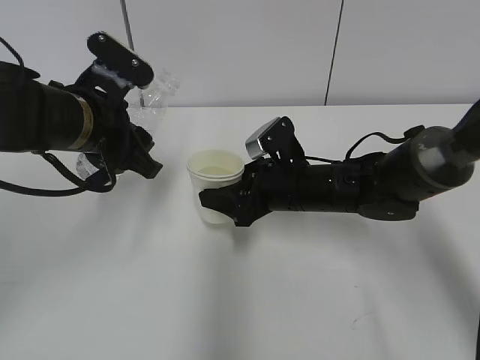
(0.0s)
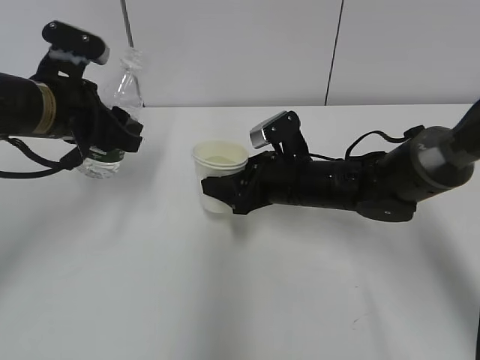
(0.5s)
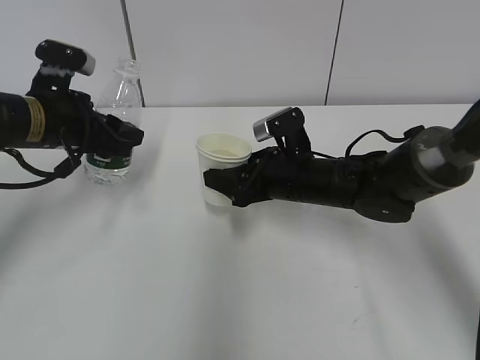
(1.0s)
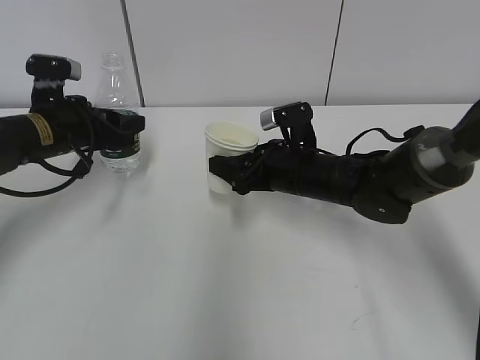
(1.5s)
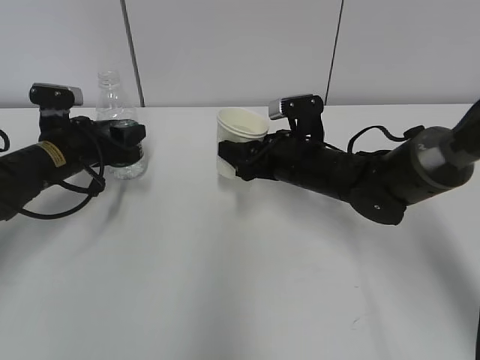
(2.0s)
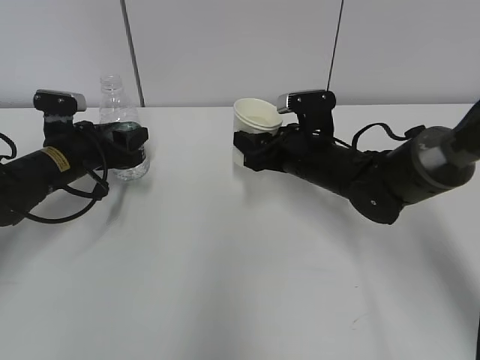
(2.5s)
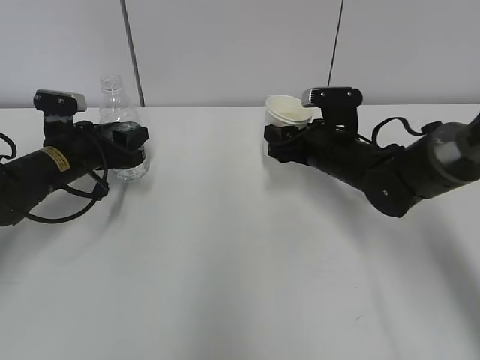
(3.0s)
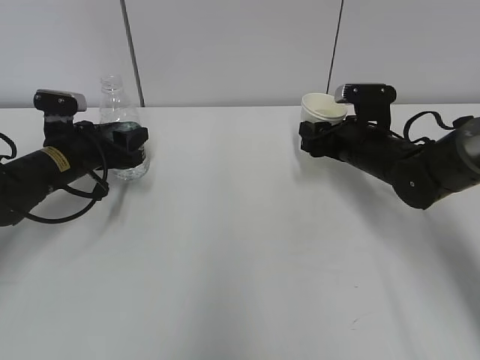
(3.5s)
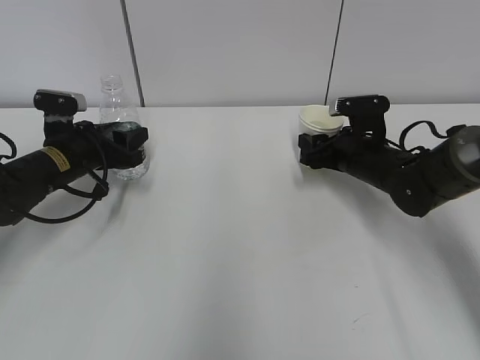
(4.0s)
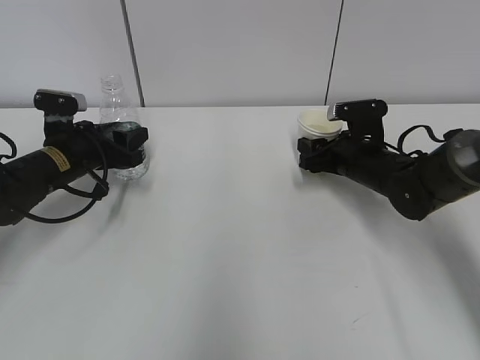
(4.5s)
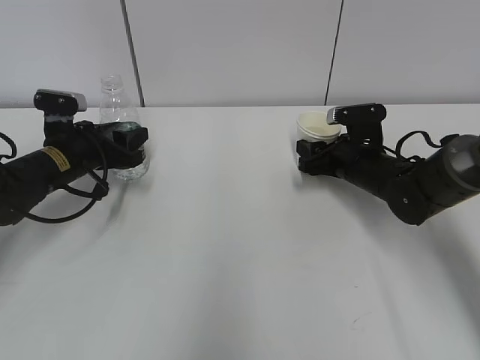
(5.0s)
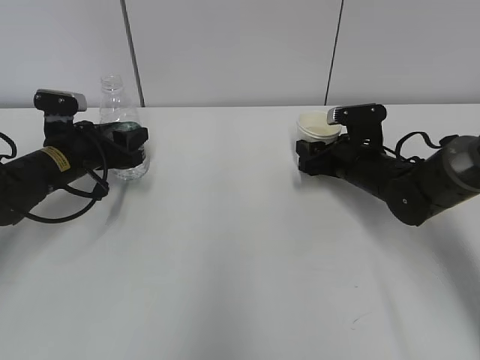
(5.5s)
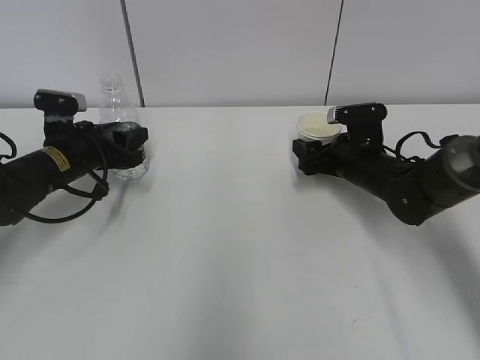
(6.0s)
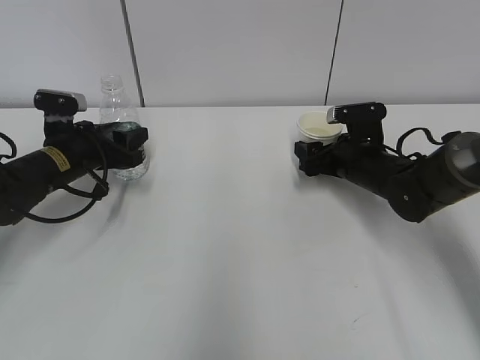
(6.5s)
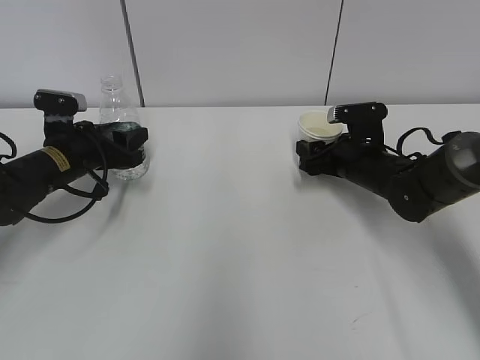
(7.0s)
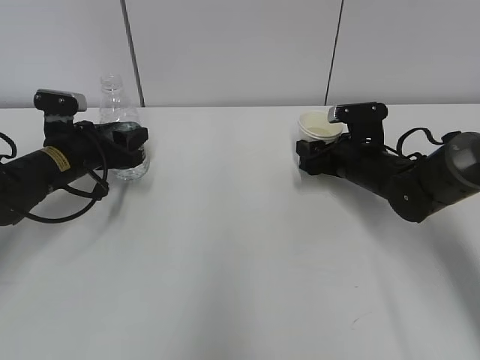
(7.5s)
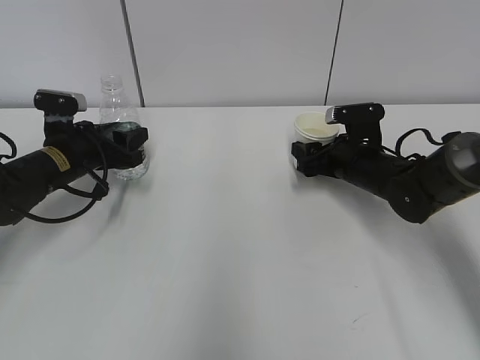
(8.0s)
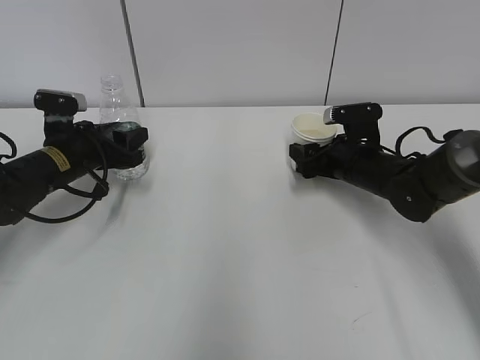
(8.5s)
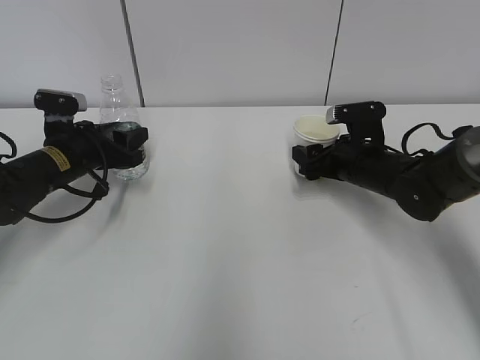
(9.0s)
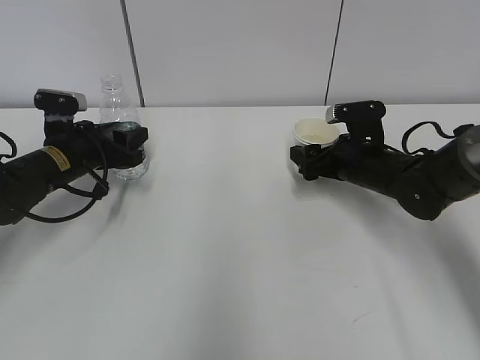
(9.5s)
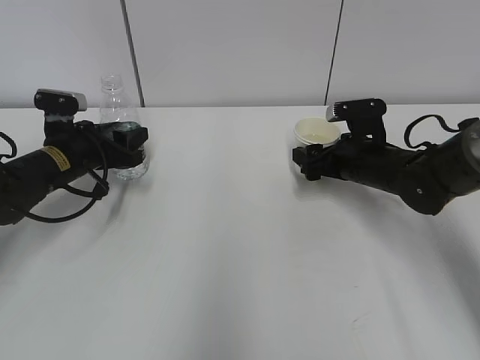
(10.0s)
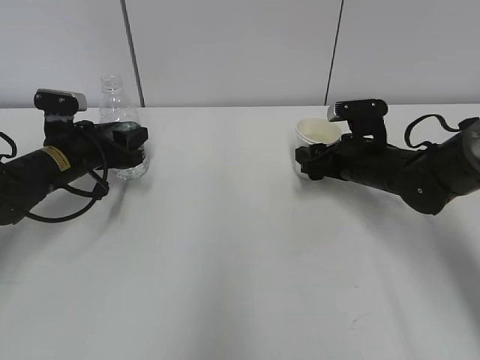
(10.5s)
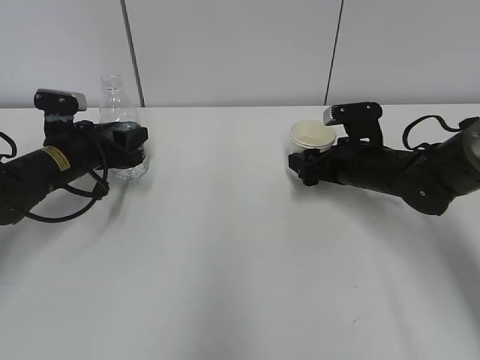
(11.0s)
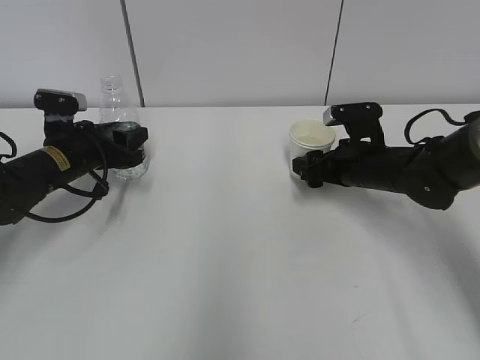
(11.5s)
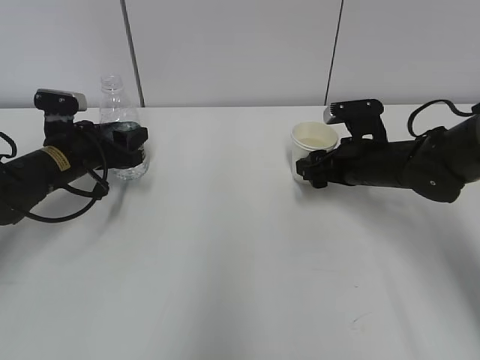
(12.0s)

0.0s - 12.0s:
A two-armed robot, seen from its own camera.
Step, 0.0s - 6.0s: Place the paper cup with the right hand.
0.0s - 2.0s: The left gripper moves downward, forward and to the left, roughly 15 cm.
2.0s - 4.0s: The right gripper travels to the right by approximately 10 cm.
4.0s - 6.0s: The right gripper opens up.
6.0s - 8.0s: The right gripper closes up.
8.0s - 10.0s: The right gripper opens its fingers.
10.0s - 12.0s: The right gripper closes.

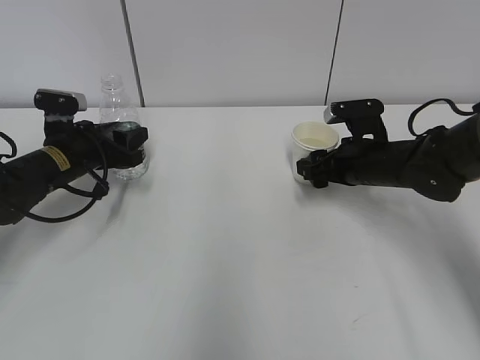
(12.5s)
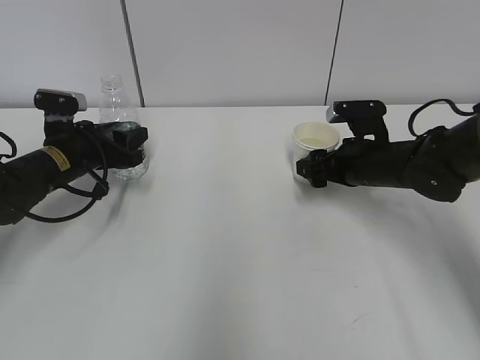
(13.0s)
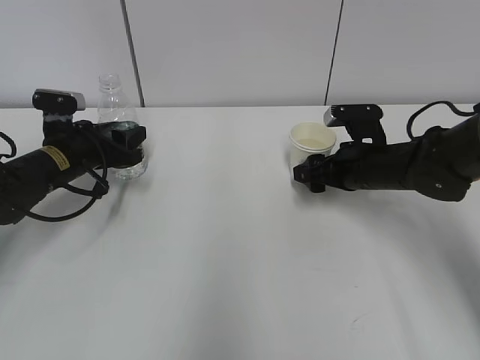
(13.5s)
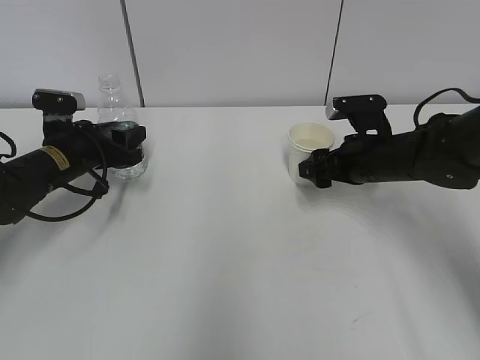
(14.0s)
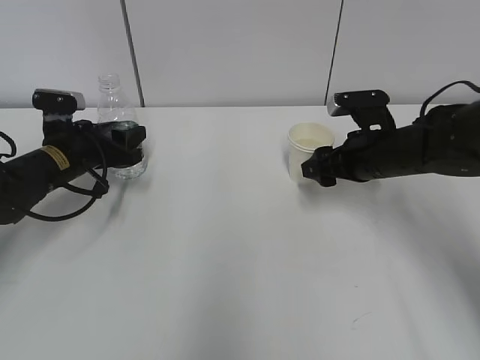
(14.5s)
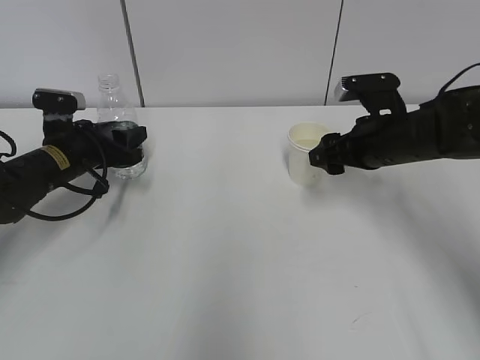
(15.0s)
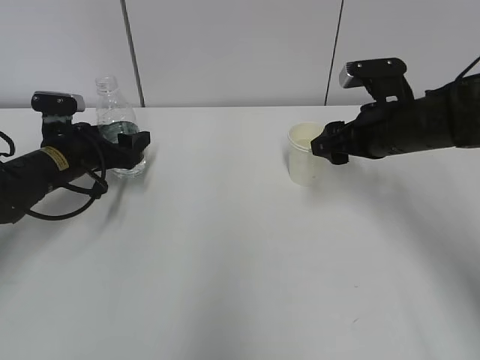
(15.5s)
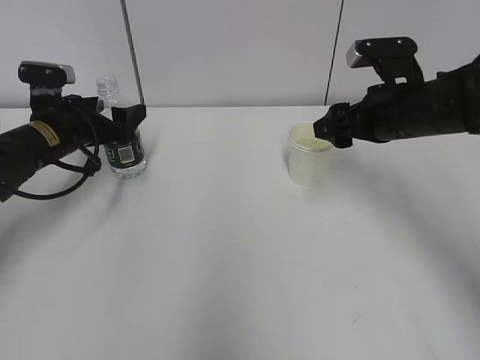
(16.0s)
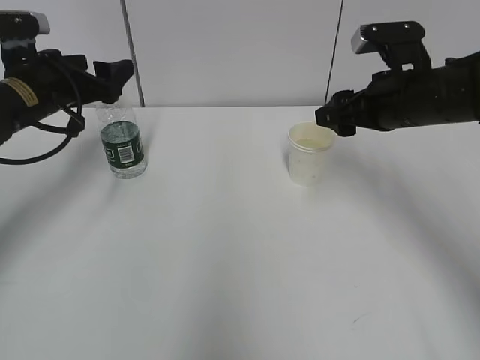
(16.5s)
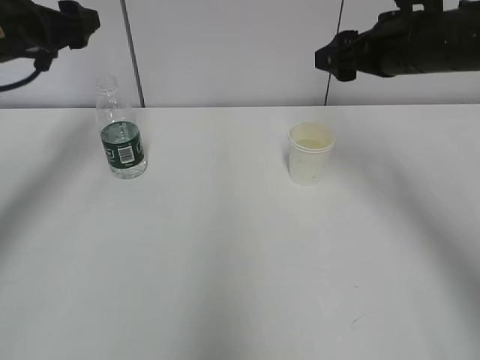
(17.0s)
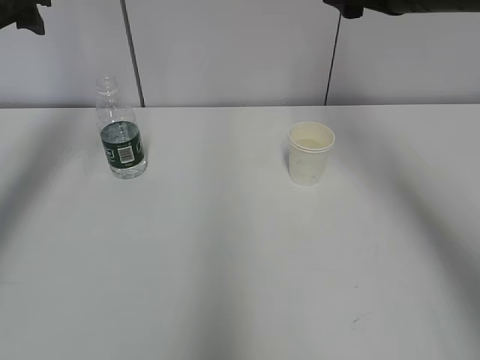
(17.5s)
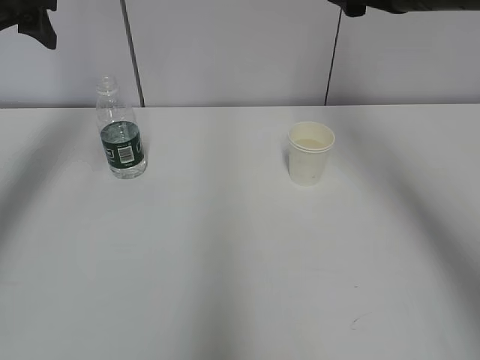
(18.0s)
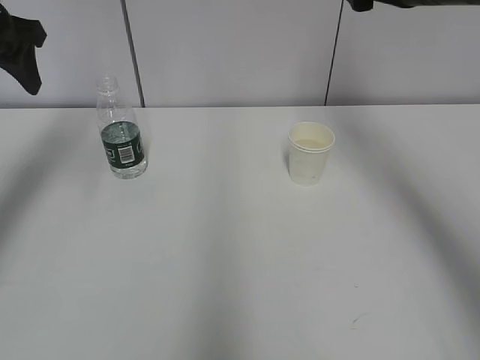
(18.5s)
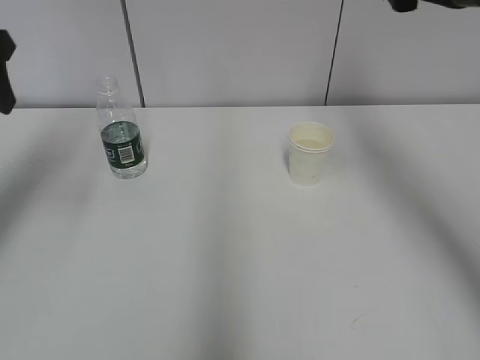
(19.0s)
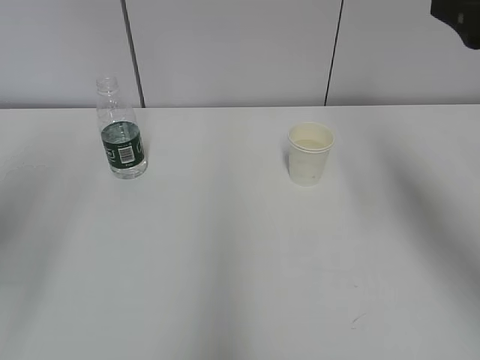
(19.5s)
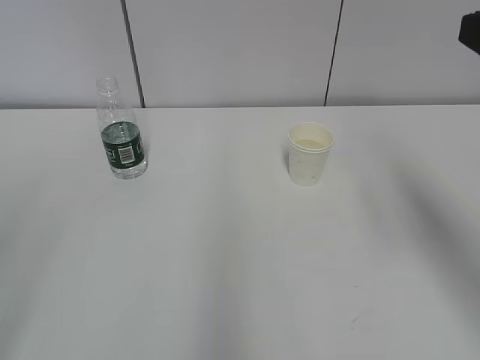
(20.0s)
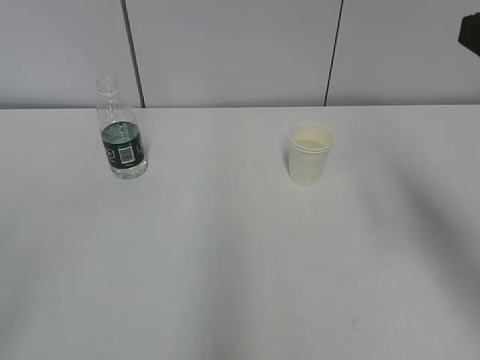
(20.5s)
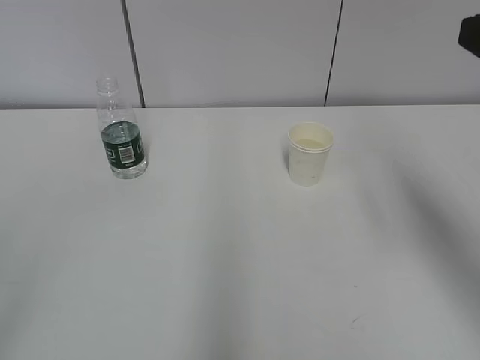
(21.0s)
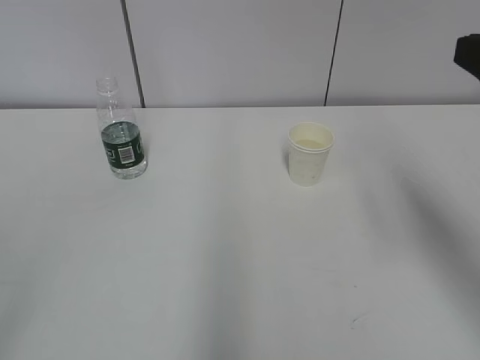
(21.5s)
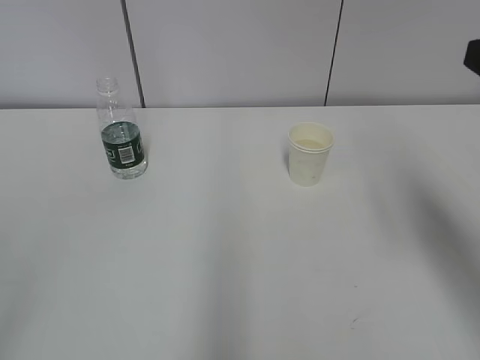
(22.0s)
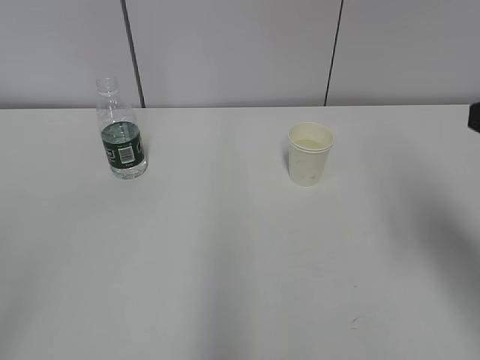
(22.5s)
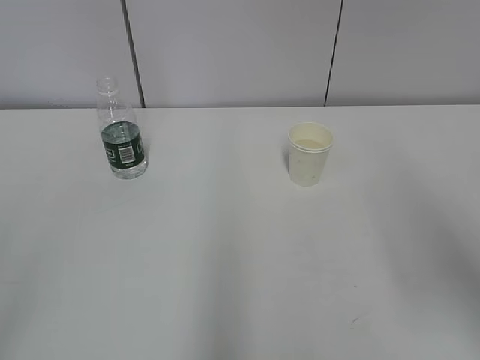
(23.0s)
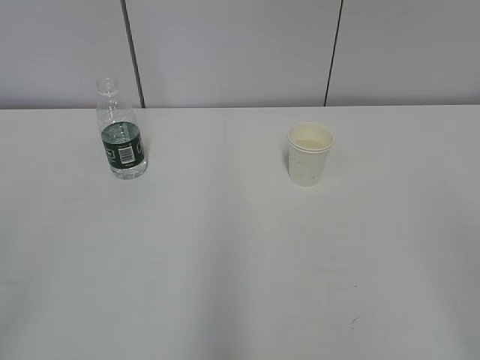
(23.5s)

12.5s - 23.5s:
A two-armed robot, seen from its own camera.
12.5s - 14.5s: There are only small adjustments of the grippers.
14.5s - 16.0s: The left gripper opens, while the right gripper travels upward by some 5 cm.
16.0s - 18.0s: The right gripper heads upward, covering some 15 cm. Meanwhile the left gripper travels upward by some 20 cm.
18.0s - 20.0s: The right gripper goes approximately 20 cm backward; the left gripper is displaced backward by roughly 30 cm.
21.5s - 23.5s: The right gripper shifts roughly 20 cm backward.

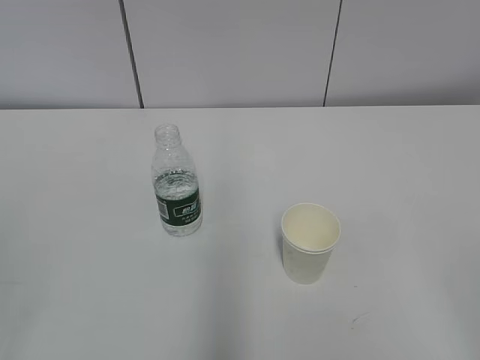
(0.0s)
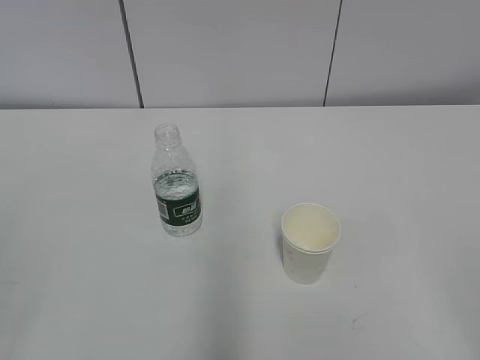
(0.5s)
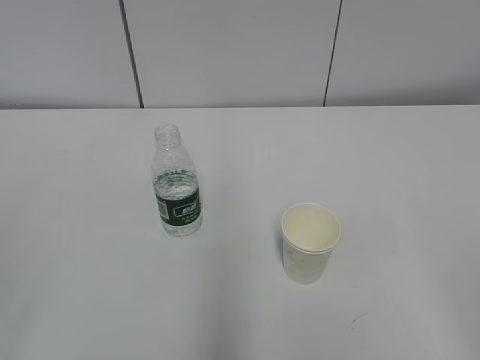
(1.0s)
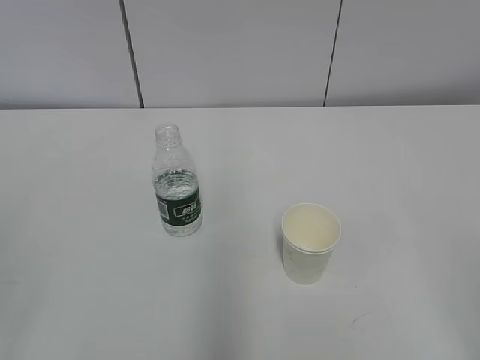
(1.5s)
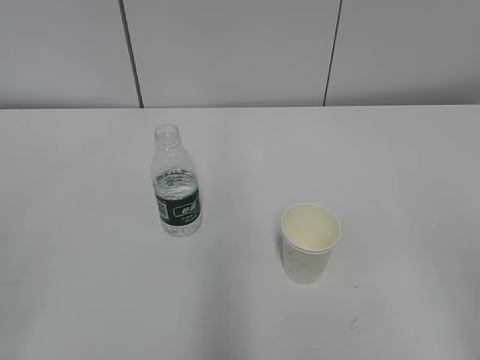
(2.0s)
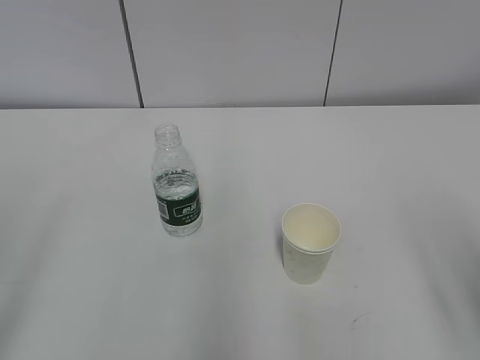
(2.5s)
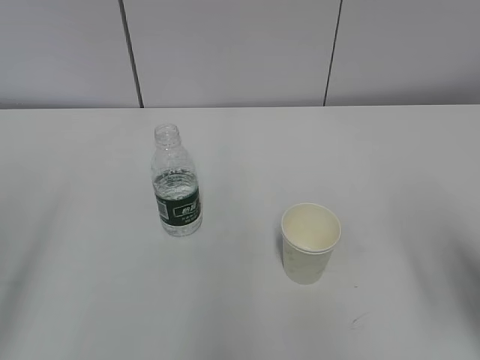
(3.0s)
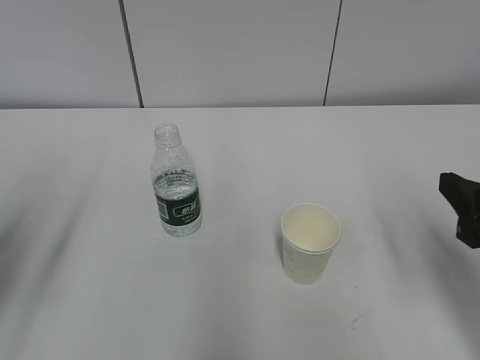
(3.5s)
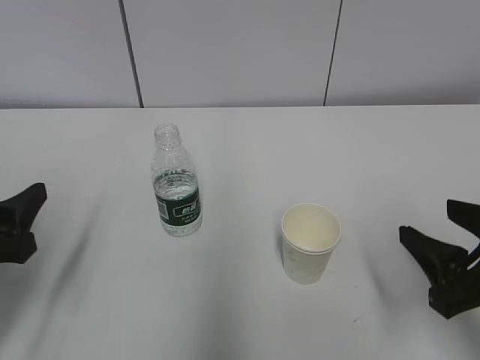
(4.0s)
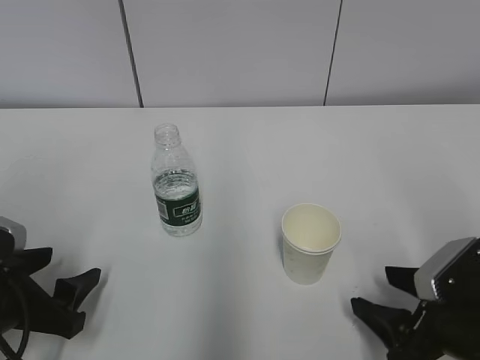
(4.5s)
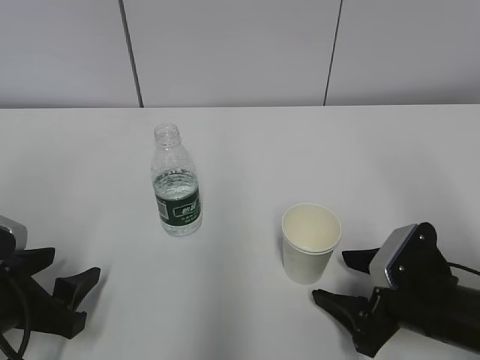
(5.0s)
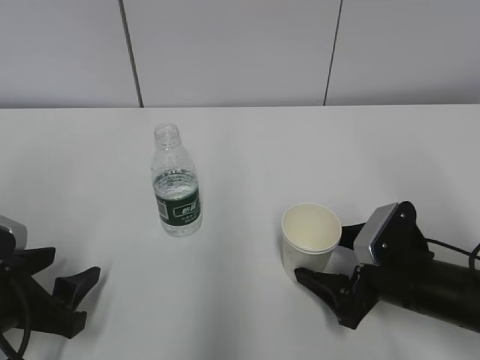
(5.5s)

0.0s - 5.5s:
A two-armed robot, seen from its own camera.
2.0s - 3.5s: The right gripper travels forward and downward by roughly 20 cm, while the left gripper shifts approximately 15 cm forward, and opens up.
3.5s - 5.5s: The left gripper heads downward, covering roughly 15 cm, while the right gripper goes some 15 cm downward, forward and to the left, and opens.
